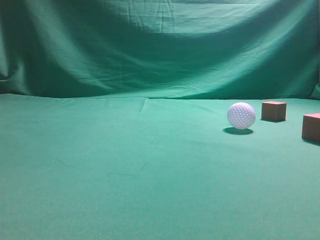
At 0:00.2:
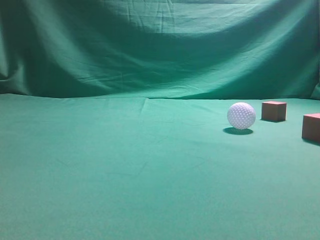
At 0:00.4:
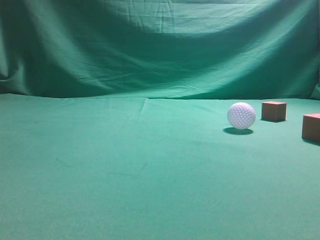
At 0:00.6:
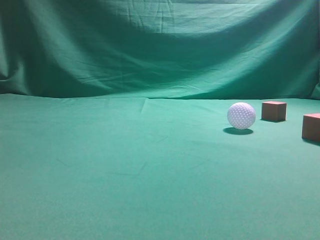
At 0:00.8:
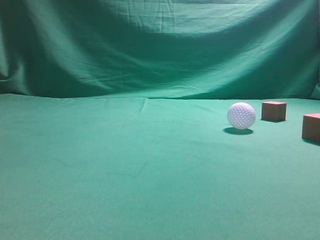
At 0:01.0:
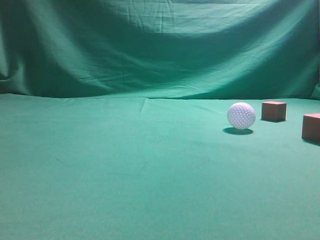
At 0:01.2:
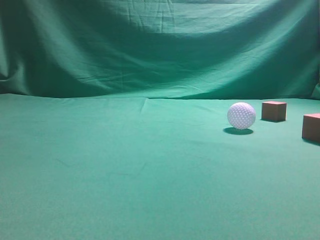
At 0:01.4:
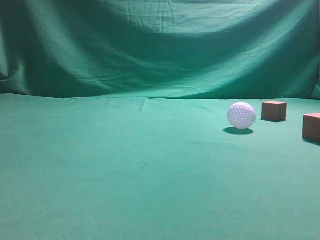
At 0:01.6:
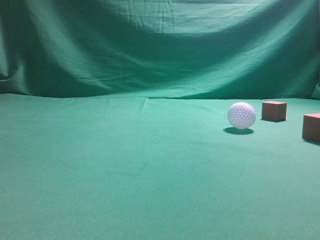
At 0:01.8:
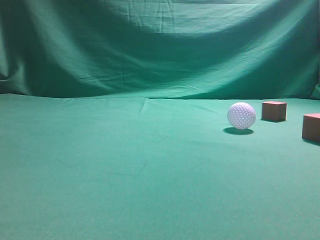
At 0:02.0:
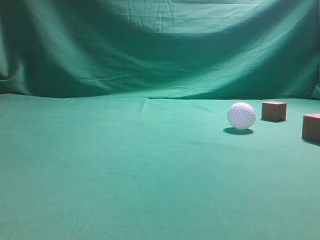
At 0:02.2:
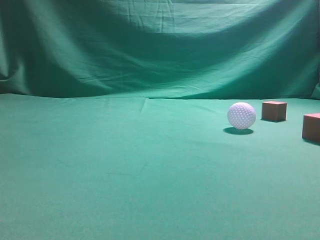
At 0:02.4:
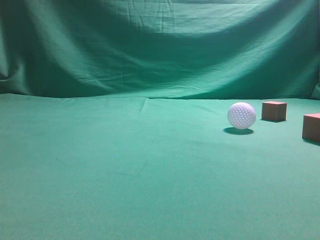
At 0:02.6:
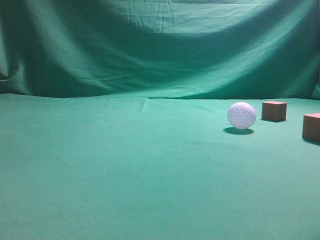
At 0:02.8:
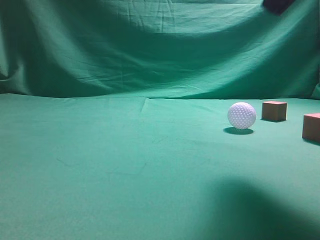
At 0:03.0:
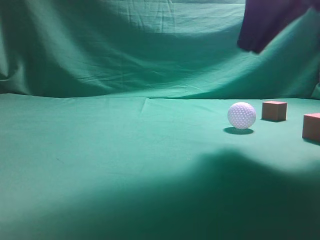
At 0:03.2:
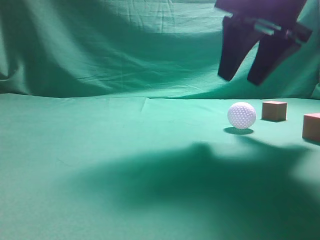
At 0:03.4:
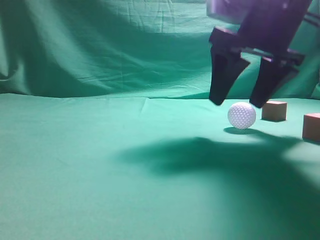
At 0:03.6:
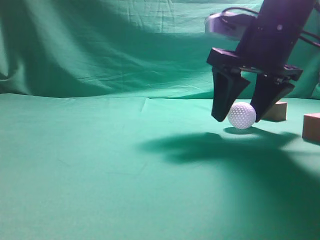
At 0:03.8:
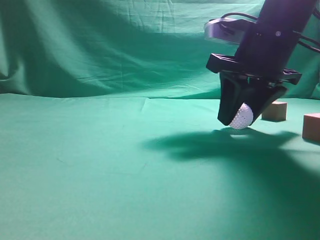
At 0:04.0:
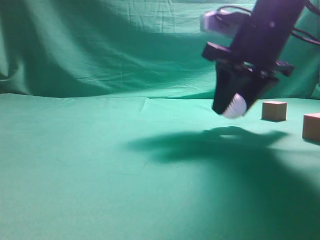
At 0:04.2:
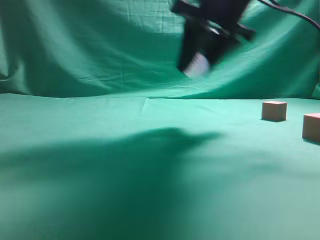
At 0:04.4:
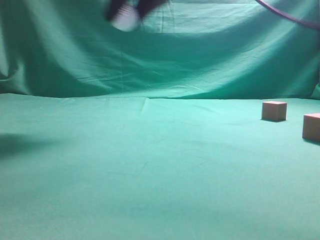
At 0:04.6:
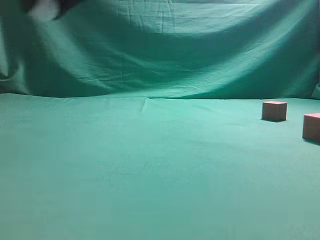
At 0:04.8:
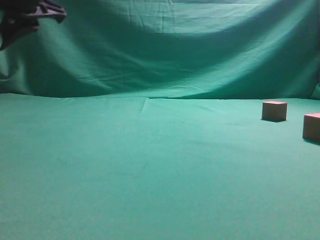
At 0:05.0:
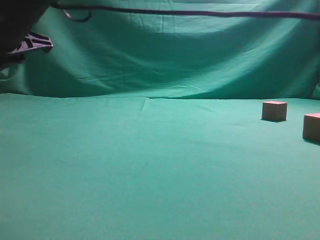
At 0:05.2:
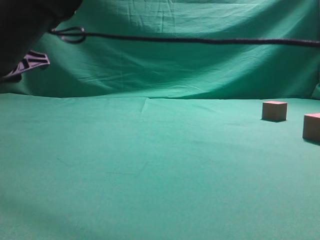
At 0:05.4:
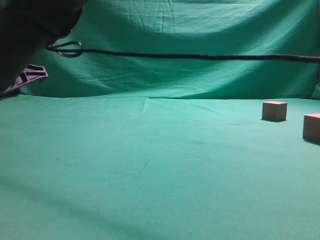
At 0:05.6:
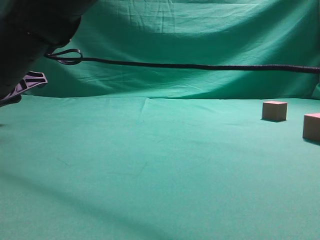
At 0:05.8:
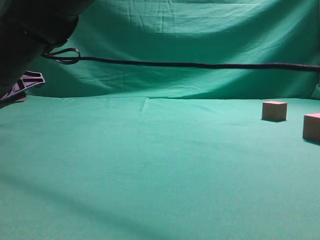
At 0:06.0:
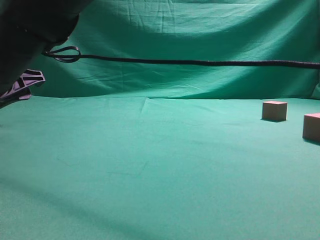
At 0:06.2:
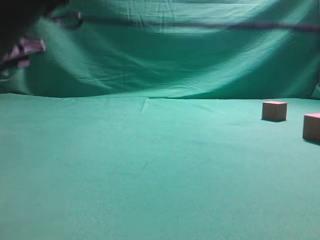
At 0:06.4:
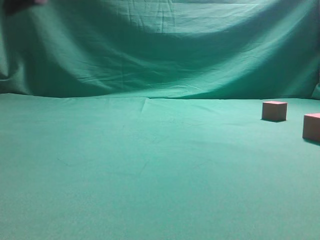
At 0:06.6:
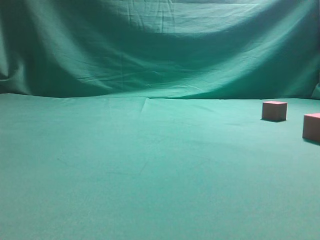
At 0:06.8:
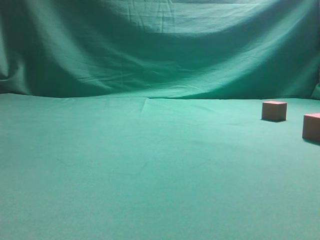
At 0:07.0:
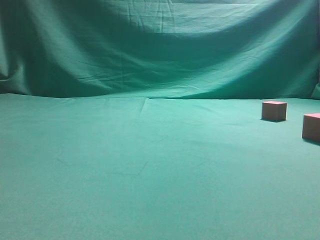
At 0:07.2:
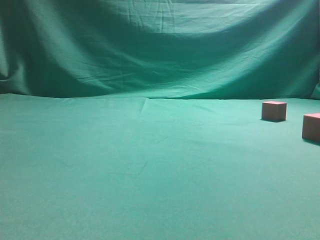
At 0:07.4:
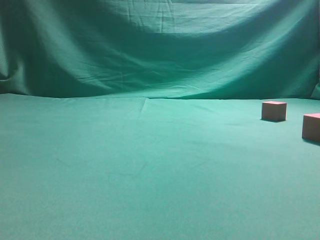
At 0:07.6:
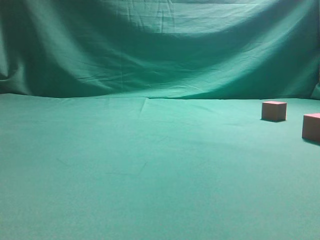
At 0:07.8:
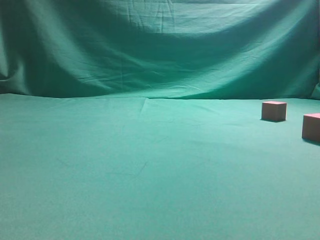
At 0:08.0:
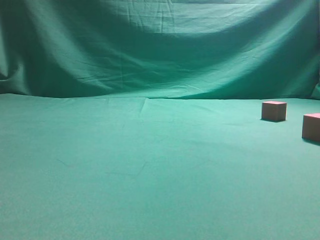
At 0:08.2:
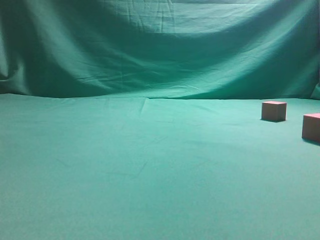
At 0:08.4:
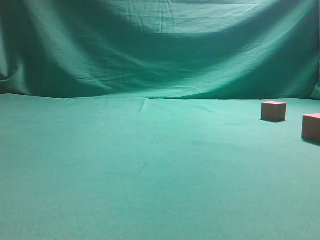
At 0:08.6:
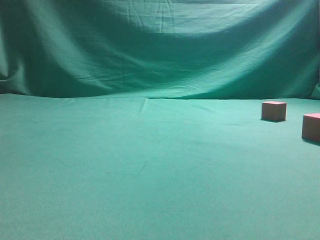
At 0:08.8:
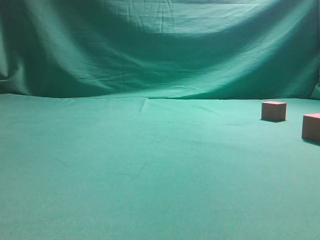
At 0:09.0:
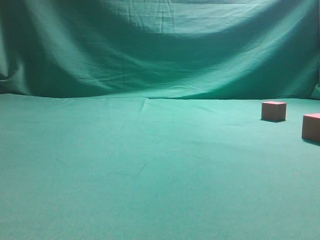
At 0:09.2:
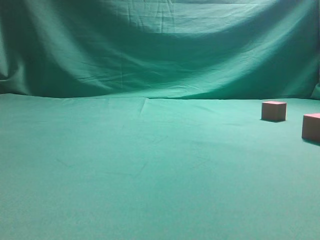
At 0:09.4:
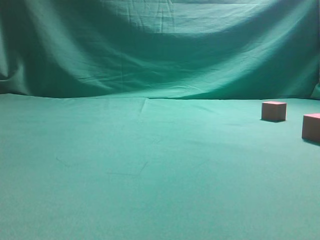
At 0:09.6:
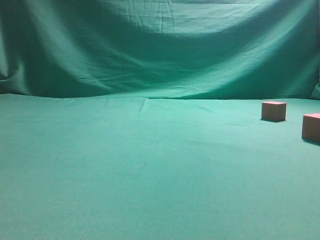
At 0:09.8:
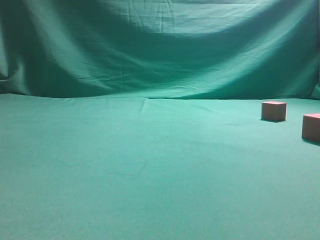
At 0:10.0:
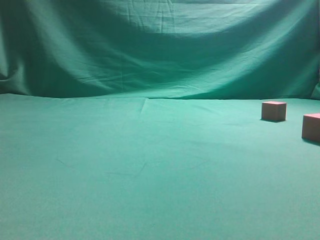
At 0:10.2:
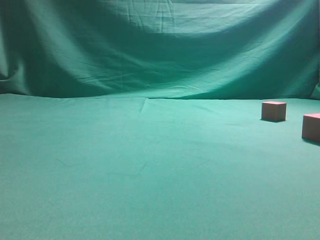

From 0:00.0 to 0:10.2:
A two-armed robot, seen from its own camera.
Step, from 0:00.0 to 0:04.0: Grasp the spherical object on the right side.
From 0:01.4 to 0:03.0: The right gripper shifts approximately 25 cm forward and to the left.
From 0:03.0 to 0:04.4: The right gripper is displaced to the left by some 15 cm, and opens and closes again.
From 0:04.4 to 0:05.8: The right gripper is displaced to the left and downward by some 25 cm.
From 0:05.8 to 0:07.2: The right gripper is displaced upward and to the right by approximately 40 cm, and closes up.

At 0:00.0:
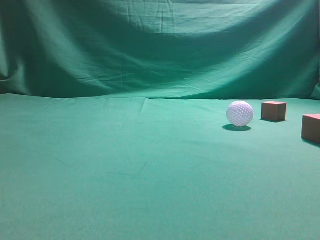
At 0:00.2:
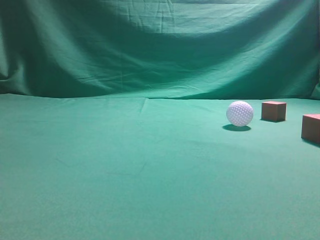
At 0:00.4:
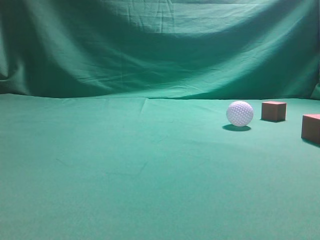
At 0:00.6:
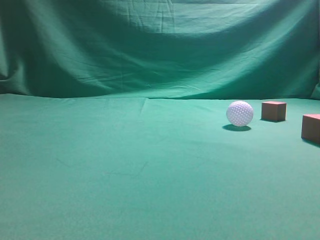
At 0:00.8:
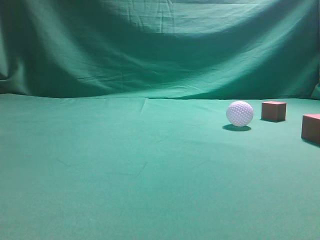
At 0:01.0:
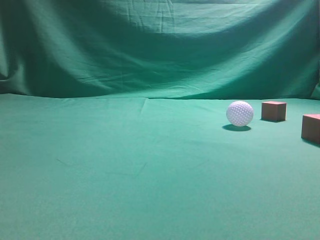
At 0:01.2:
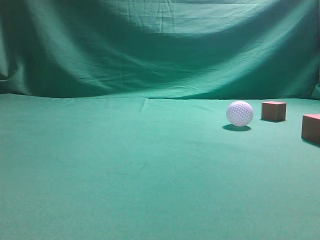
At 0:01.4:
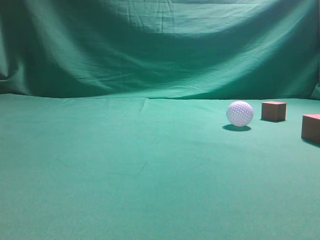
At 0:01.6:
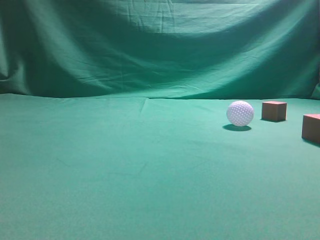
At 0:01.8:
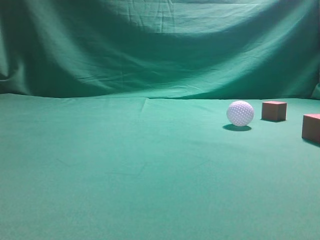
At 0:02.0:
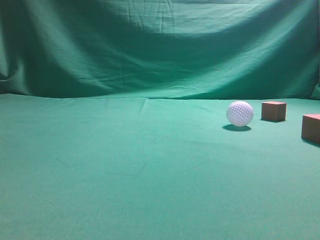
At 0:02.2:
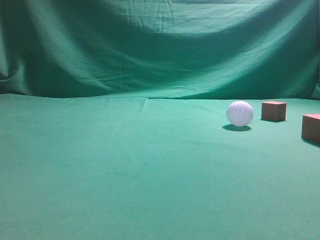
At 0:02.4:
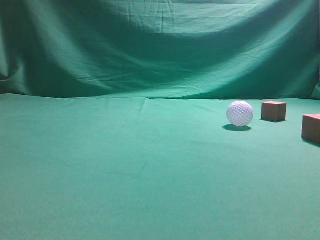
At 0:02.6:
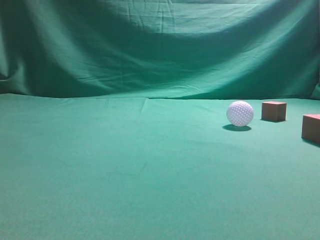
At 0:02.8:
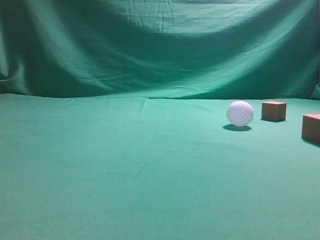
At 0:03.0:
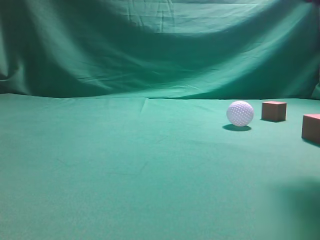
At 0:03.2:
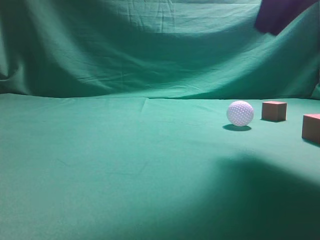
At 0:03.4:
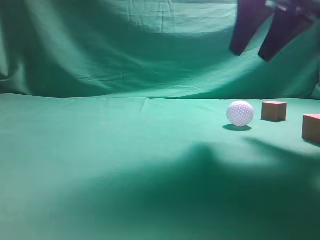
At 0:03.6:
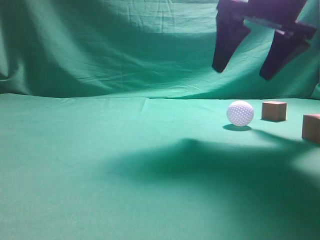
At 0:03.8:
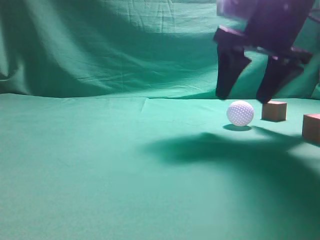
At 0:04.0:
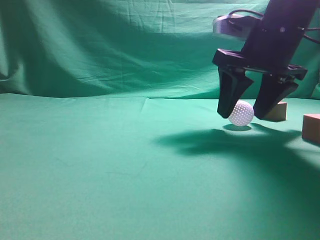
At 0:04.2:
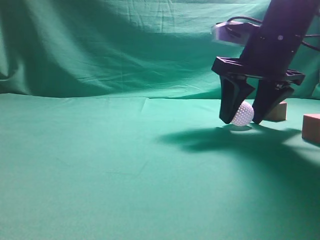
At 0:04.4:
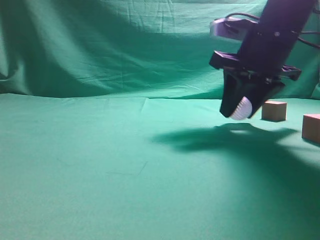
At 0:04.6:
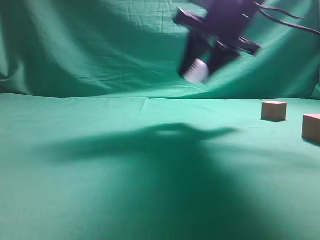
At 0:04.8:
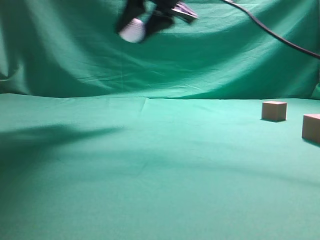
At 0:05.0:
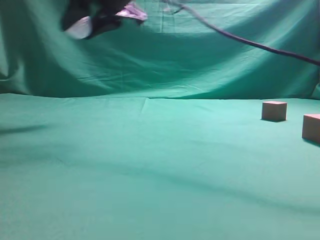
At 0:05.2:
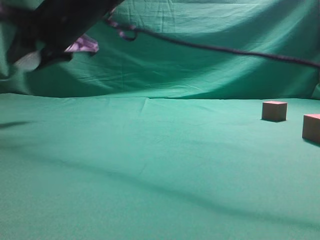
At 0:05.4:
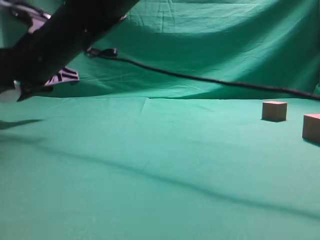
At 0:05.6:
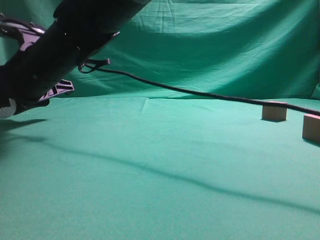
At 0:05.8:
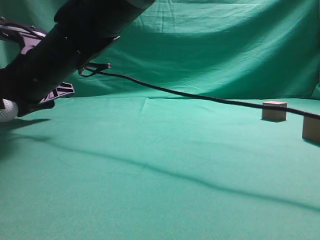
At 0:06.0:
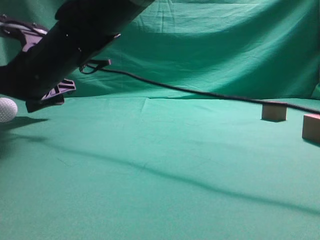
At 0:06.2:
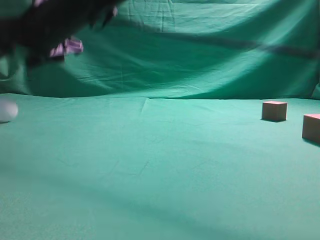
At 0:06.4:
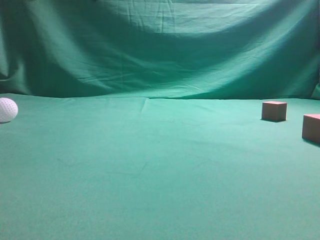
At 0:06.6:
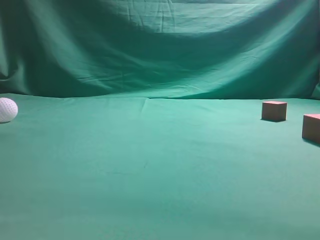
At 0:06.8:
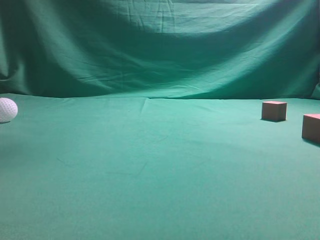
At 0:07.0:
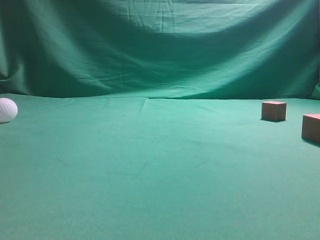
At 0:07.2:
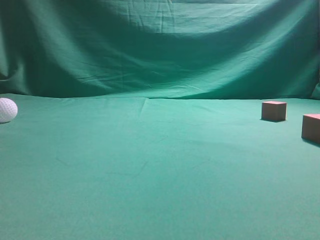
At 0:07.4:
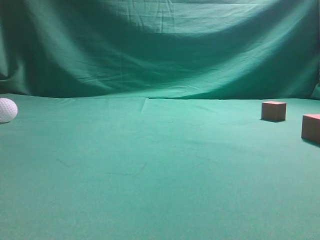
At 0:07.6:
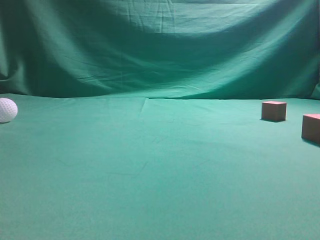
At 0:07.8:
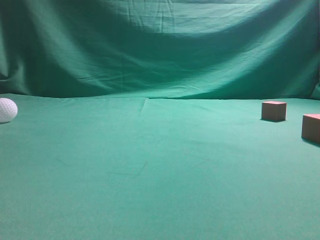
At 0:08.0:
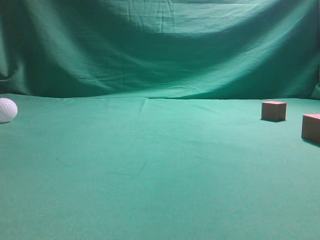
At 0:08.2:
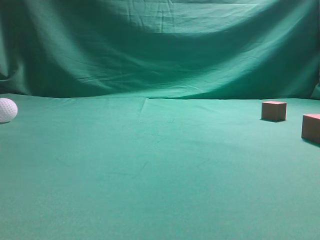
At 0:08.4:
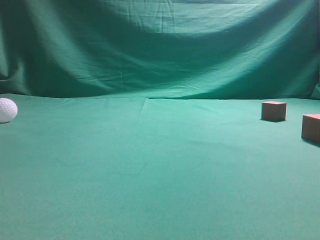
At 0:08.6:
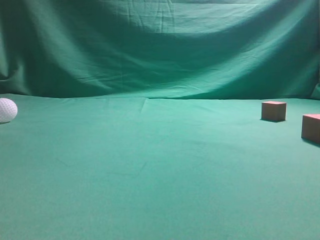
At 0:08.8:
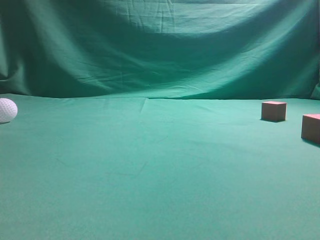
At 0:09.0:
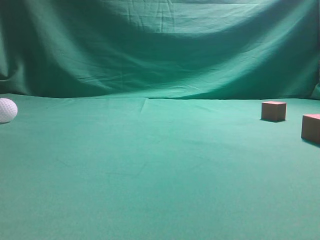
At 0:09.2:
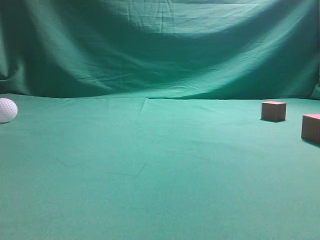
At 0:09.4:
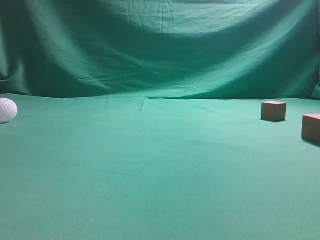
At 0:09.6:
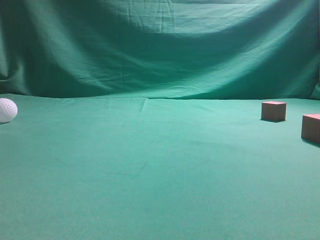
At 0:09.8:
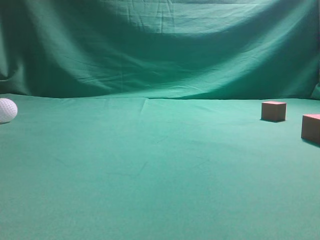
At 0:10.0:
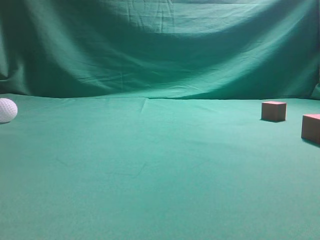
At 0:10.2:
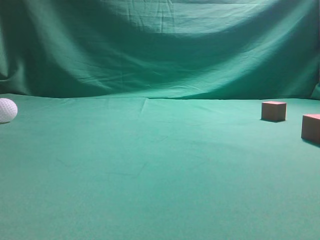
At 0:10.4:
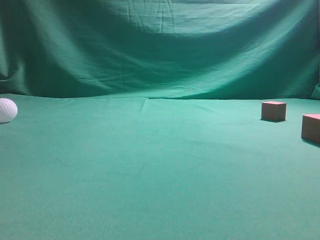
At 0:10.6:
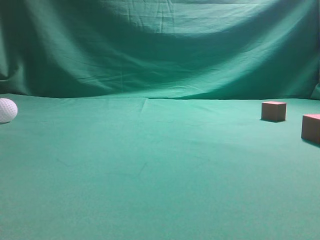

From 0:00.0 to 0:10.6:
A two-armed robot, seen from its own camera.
Step, from 0:00.0 to 0:04.4: Grasp the spherical object on the right side.
From 0:01.6 to 0:03.0: The right gripper heads forward, upward and to the left, covering approximately 20 cm.
From 0:03.0 to 0:04.6: The right gripper heads forward, to the left and downward, covering about 20 cm, and opens, then closes again.
From 0:04.6 to 0:06.0: The right gripper travels to the left by about 25 cm, and opens.
From 0:06.0 to 0:07.6: The right gripper moves upward and to the right, approximately 40 cm, and closes its fingers.
